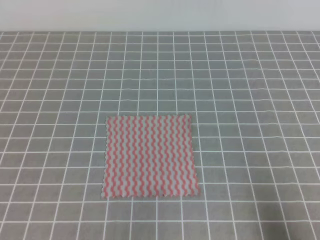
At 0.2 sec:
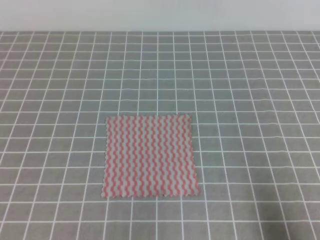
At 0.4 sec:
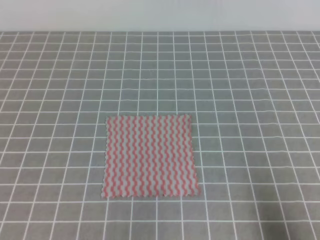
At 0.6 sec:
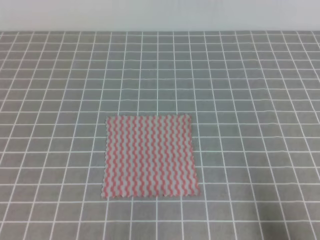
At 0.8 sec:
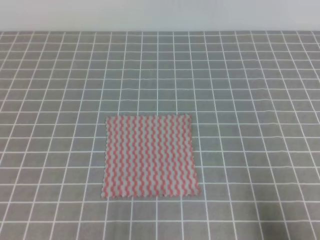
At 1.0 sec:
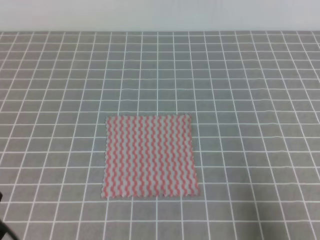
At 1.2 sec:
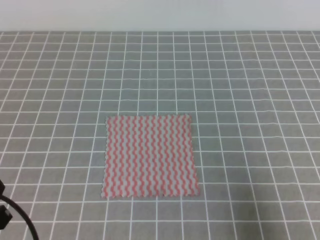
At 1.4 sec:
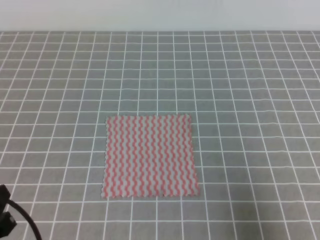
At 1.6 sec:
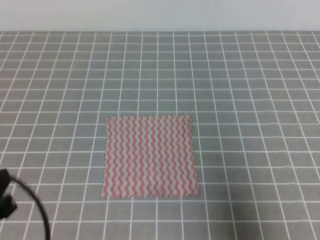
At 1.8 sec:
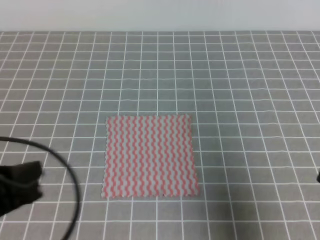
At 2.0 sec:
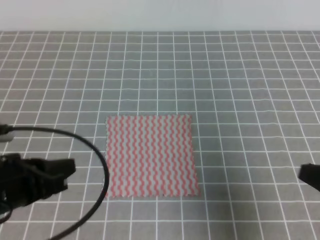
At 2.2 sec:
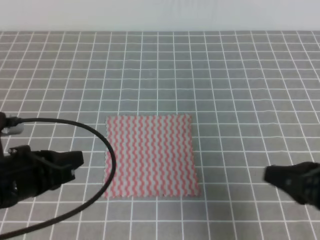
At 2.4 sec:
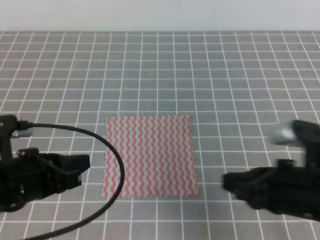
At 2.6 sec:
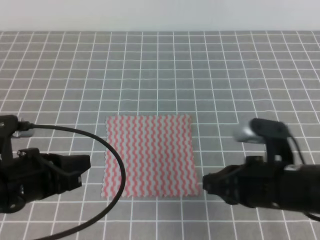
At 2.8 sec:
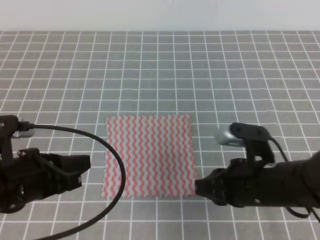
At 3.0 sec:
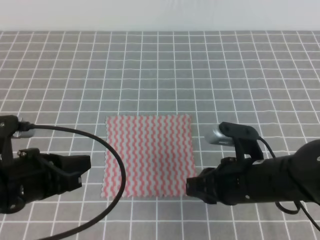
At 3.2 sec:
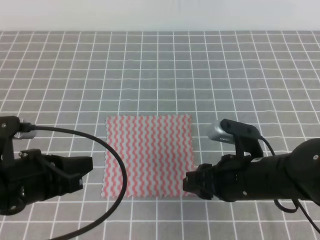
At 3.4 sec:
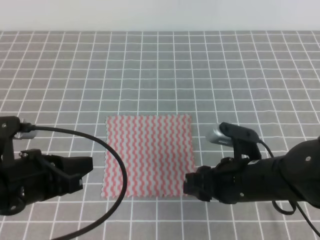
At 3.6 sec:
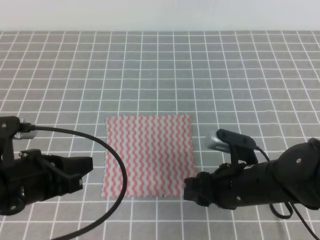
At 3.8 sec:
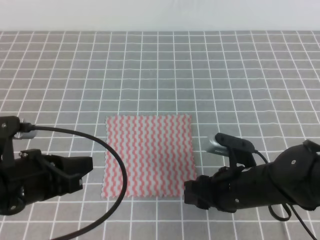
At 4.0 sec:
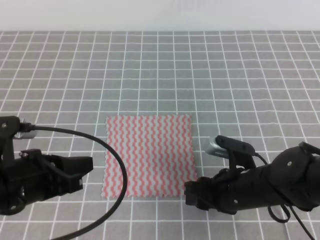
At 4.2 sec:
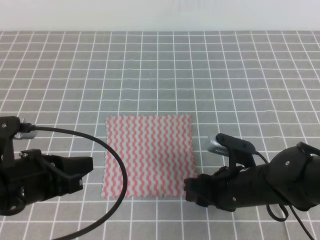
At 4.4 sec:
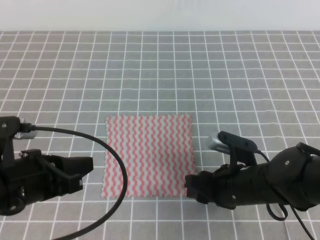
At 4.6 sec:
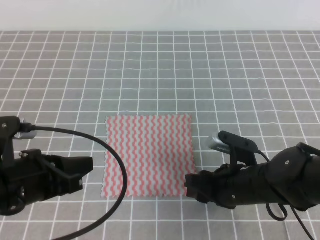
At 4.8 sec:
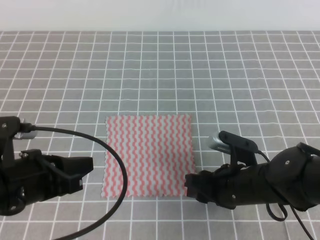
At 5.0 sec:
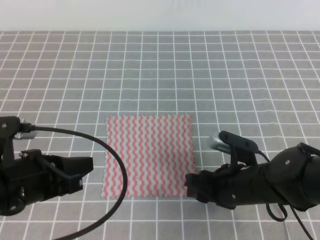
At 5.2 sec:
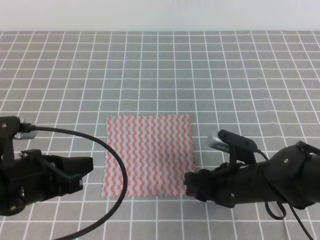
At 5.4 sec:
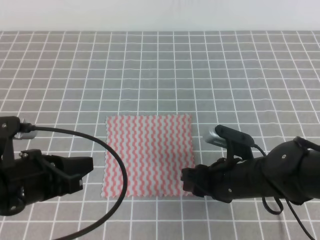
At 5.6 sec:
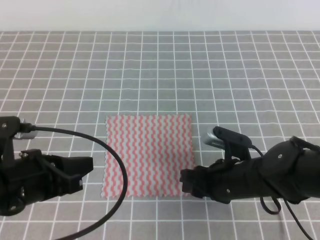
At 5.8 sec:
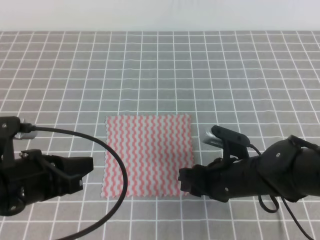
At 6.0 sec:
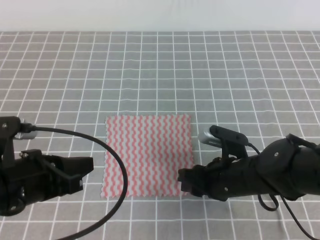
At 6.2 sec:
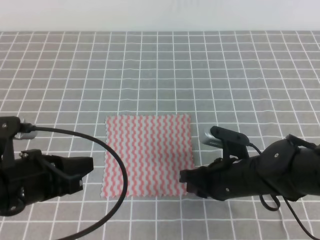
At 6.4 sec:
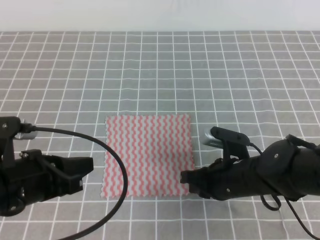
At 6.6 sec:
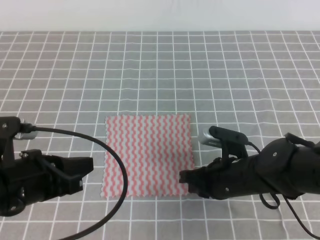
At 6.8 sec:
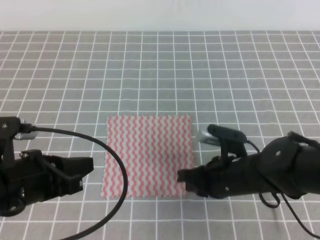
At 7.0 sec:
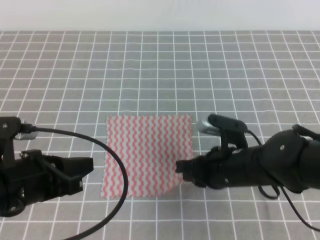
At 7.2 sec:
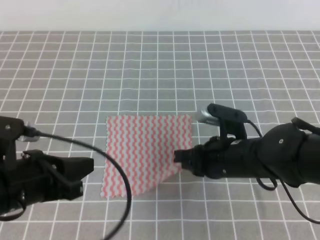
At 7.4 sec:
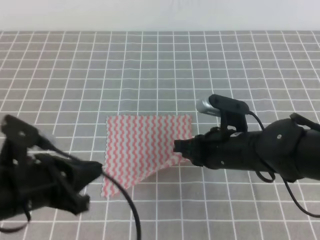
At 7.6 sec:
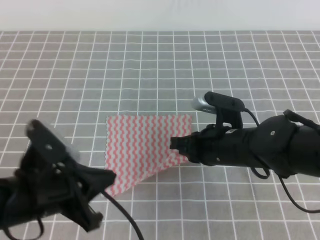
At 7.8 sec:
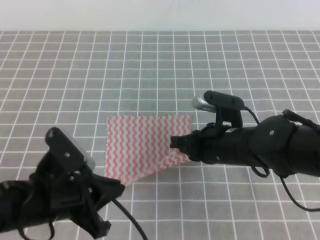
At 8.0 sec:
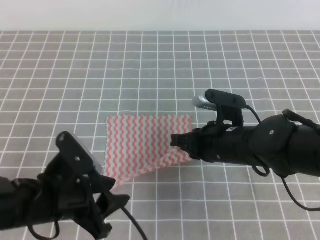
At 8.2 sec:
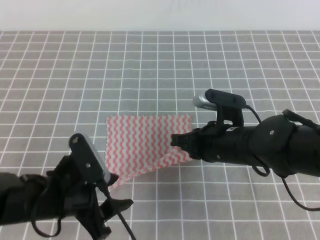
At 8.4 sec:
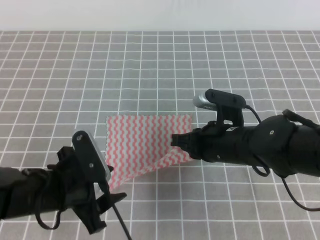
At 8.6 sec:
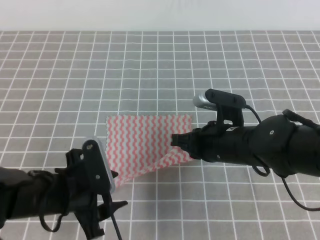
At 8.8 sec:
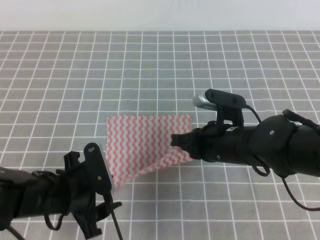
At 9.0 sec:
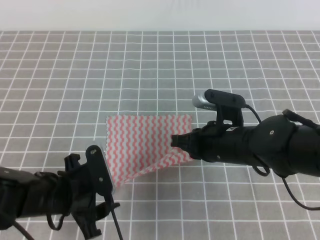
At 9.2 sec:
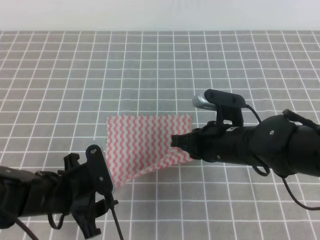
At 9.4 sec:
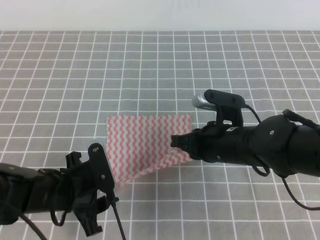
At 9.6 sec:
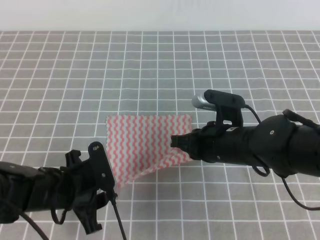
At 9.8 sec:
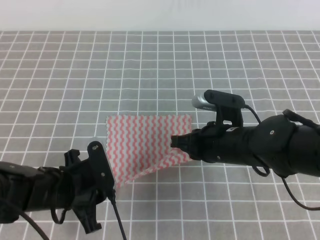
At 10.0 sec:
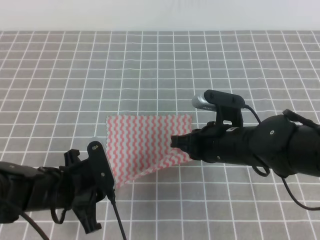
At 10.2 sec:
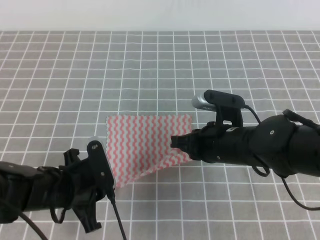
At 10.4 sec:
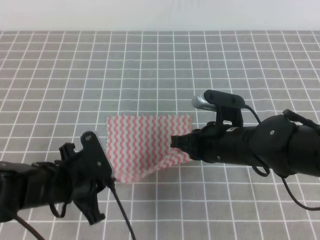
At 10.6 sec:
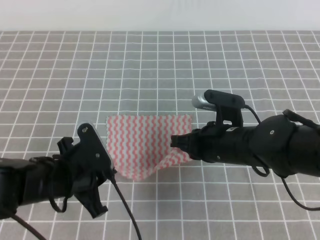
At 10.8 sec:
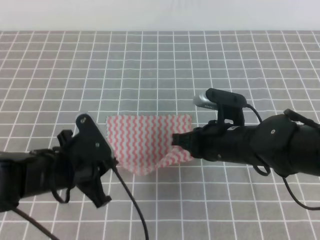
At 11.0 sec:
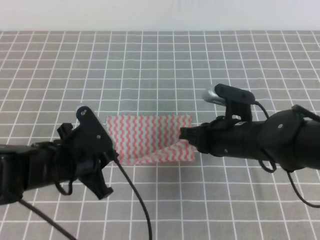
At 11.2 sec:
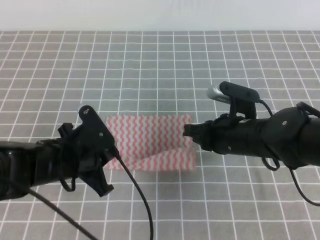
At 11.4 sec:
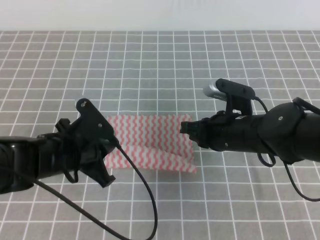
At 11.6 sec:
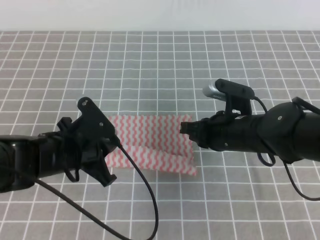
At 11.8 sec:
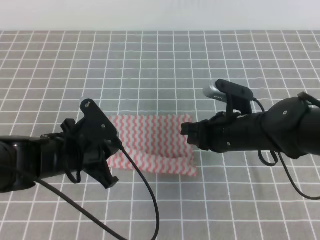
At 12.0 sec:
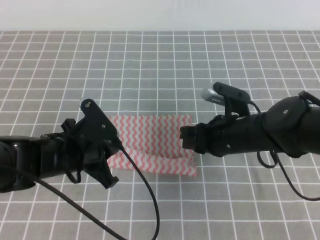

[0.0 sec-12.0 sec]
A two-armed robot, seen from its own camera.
0.0 sec to 1.6 sec: The left gripper shifts roughly 10 cm upward and forward; the right gripper shifts by roughly 5 cm.
1.6 sec to 3.0 sec: The left gripper travels forward and to the right by approximately 10 cm; the right gripper heads to the left and forward, covering some 20 cm, and opens.
3.0 sec to 4.4 sec: The right gripper goes some 5 cm downward, and opens up.
4.4 sec to 6.0 sec: The grippers move only a little.
6.0 sec to 7.6 sec: The right gripper heads upward, covering about 5 cm, and closes its fingers.
7.6 sec to 9.0 sec: The left gripper moves downward, roughly 5 cm, and opens.
9.0 sec to 10.4 sec: The left gripper closes up.
10.4 sec to 12.0 sec: The right gripper opens up.

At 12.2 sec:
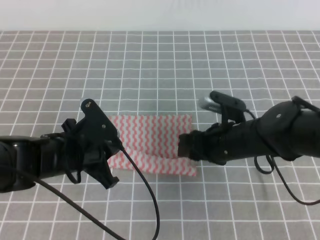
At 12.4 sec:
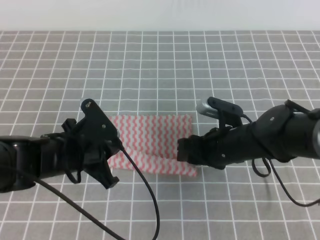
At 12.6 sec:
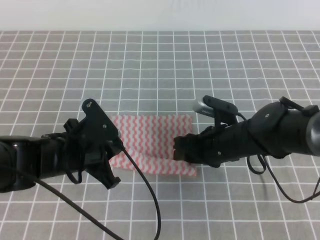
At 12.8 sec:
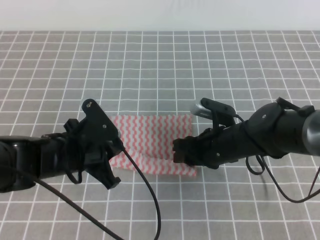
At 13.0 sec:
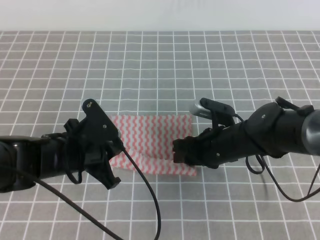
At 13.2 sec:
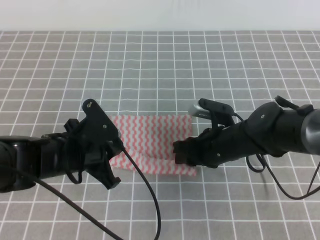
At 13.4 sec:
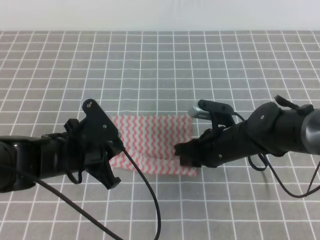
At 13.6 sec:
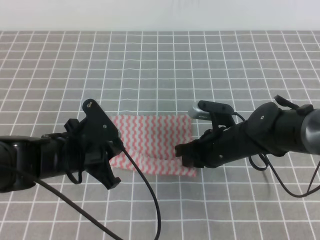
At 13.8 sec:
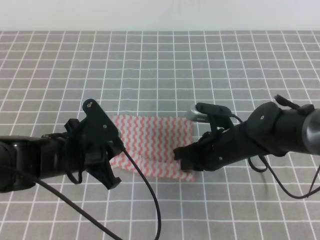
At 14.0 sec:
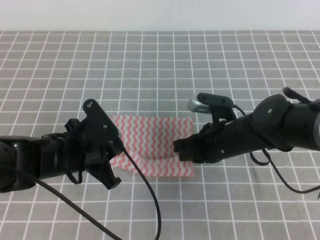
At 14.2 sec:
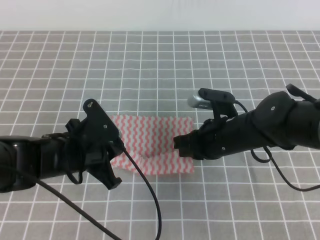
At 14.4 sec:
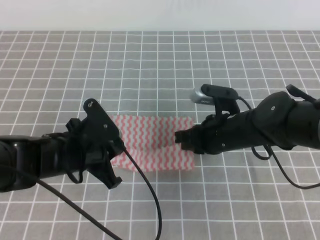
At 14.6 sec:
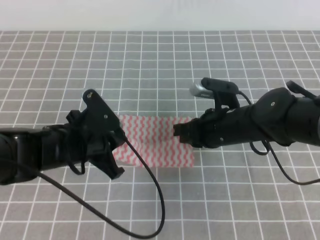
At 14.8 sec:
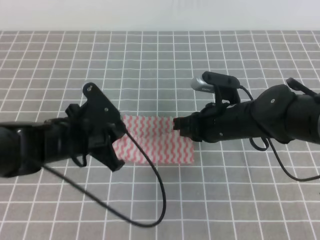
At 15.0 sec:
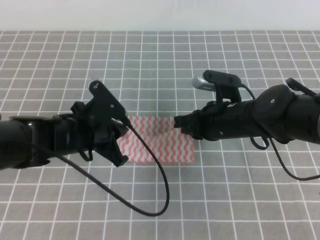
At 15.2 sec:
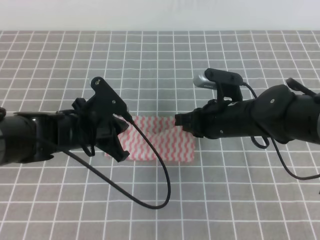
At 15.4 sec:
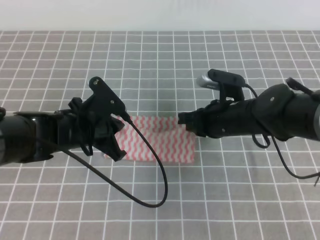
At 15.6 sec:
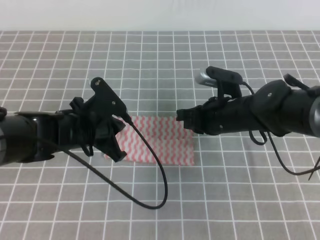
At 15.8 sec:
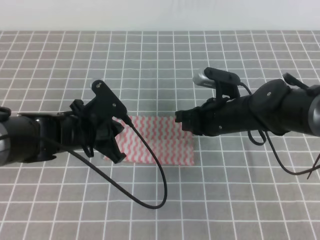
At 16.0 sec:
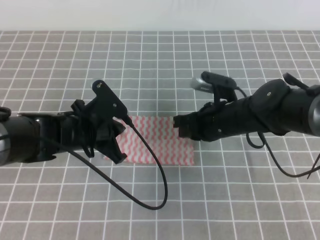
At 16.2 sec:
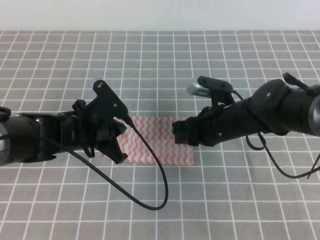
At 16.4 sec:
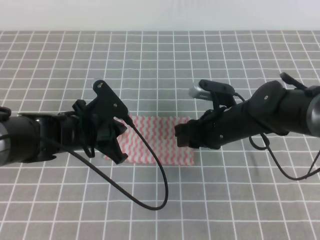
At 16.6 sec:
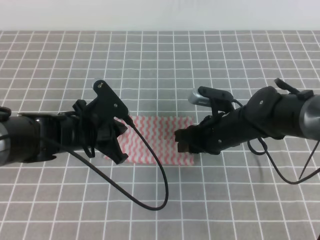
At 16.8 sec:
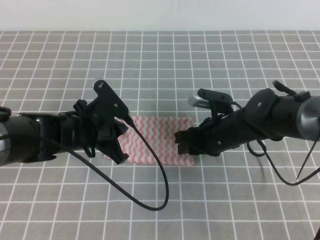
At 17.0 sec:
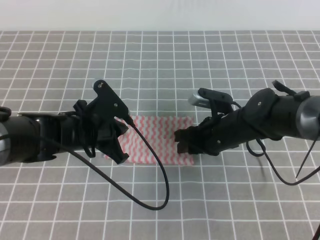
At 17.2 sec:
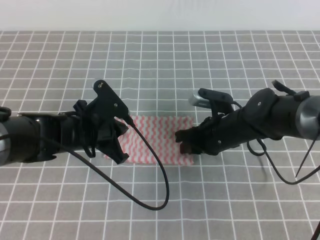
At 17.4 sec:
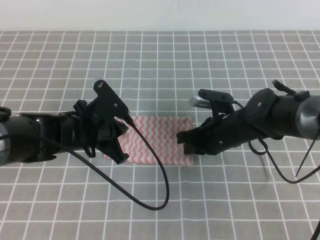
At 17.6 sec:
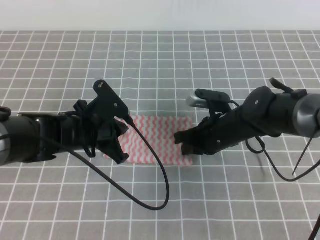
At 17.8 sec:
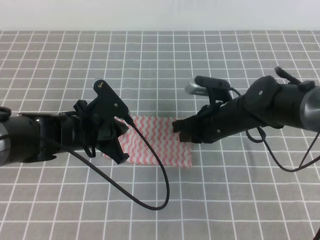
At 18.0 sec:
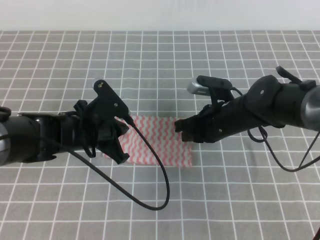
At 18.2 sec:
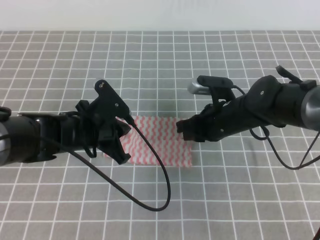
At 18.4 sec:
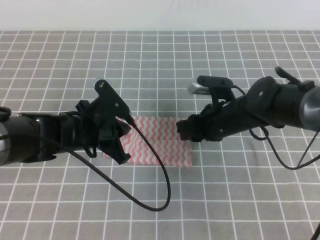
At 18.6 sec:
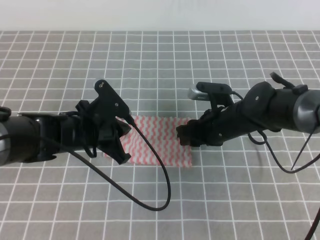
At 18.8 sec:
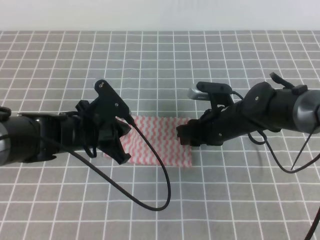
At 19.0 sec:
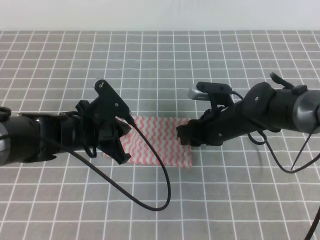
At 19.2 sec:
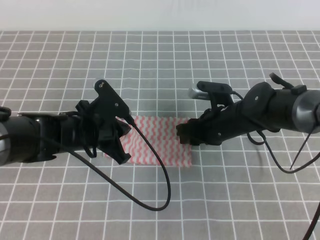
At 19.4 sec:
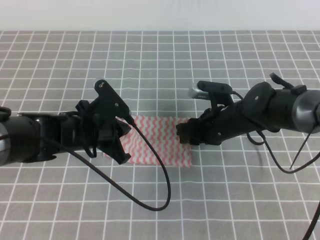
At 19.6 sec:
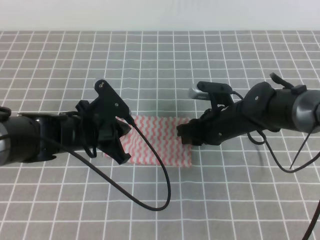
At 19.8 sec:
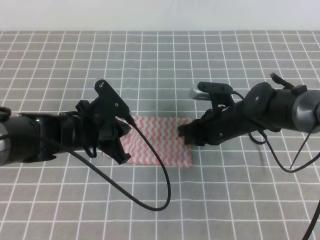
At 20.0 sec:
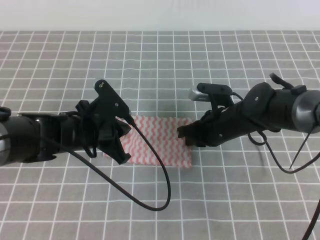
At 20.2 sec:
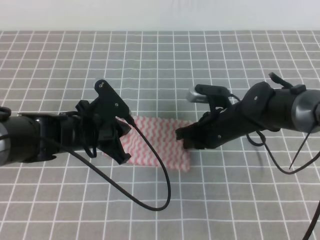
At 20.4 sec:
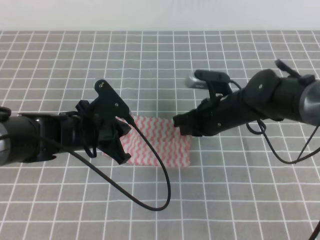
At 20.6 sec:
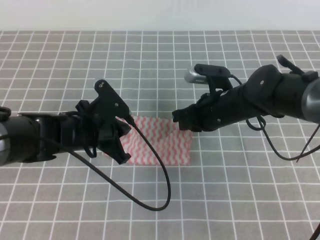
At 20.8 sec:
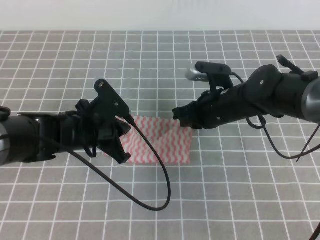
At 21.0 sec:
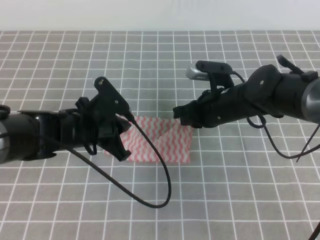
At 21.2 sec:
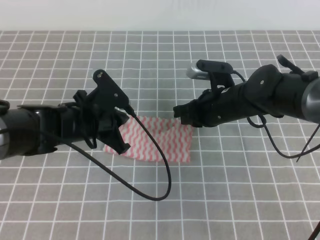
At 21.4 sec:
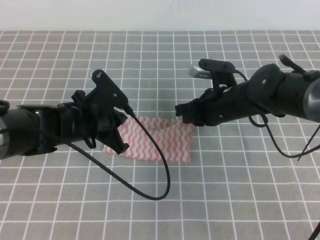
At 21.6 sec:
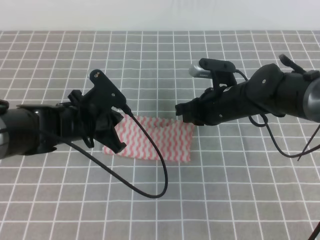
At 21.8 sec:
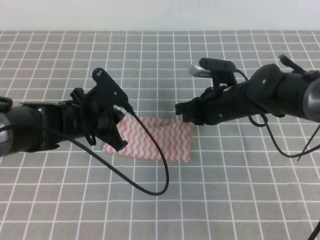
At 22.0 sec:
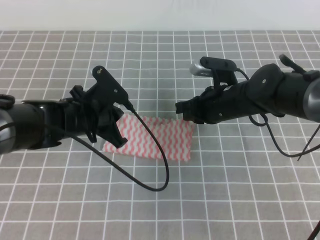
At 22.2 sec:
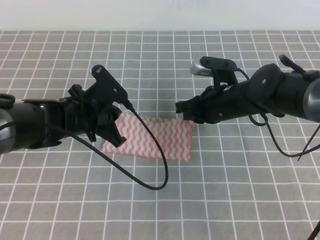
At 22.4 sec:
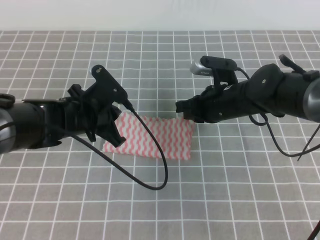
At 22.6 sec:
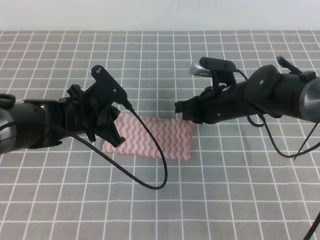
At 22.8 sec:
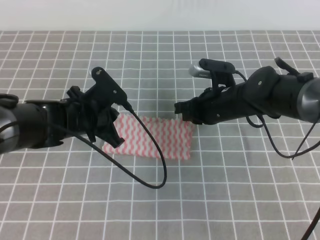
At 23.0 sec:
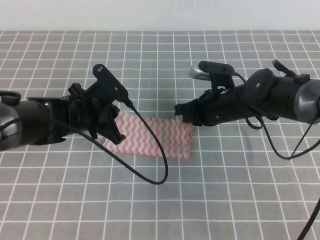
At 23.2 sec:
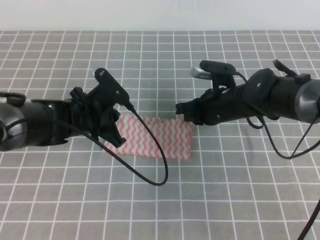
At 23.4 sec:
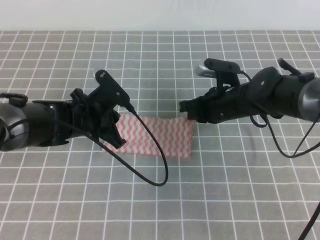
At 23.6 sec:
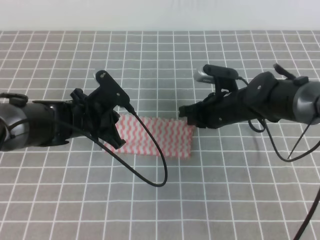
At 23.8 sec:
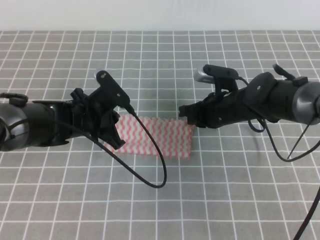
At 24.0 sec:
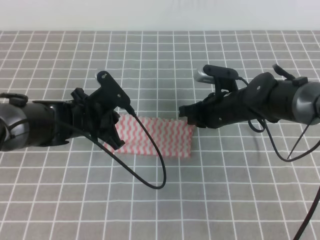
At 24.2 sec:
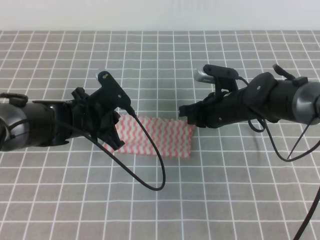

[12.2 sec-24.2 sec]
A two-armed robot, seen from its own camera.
12.2 sec to 13.8 sec: The right gripper closes.
15.2 sec to 16.6 sec: The right gripper opens up.
16.6 sec to 18.2 sec: The right gripper closes up.
18.2 sec to 19.8 sec: The right gripper opens, then closes again.
19.8 sec to 24.2 sec: The grippers make only small movements.
